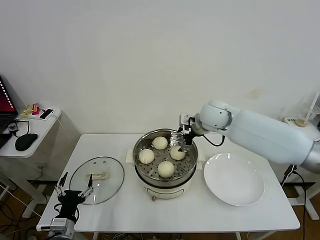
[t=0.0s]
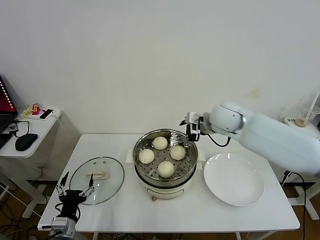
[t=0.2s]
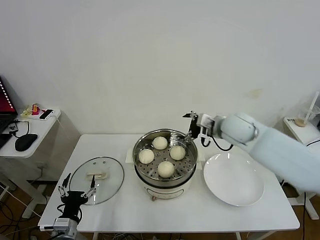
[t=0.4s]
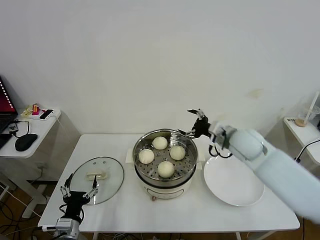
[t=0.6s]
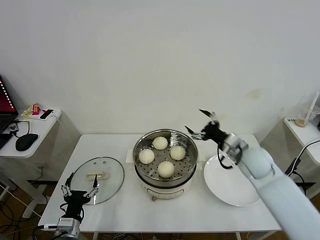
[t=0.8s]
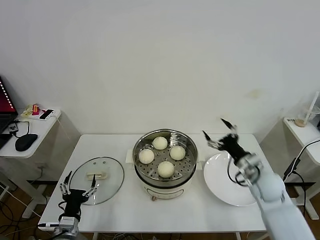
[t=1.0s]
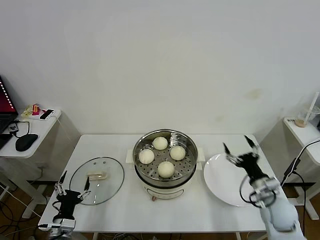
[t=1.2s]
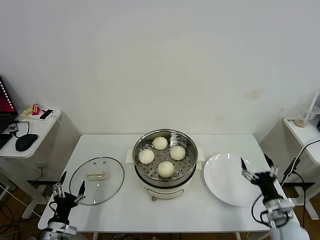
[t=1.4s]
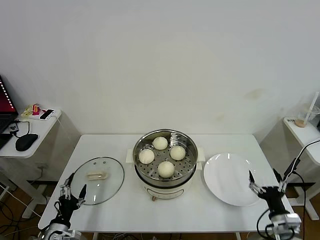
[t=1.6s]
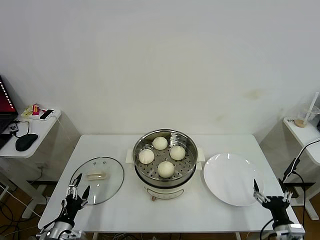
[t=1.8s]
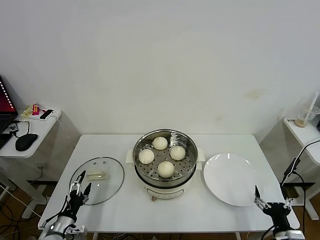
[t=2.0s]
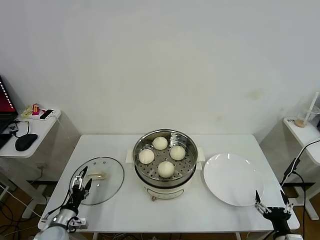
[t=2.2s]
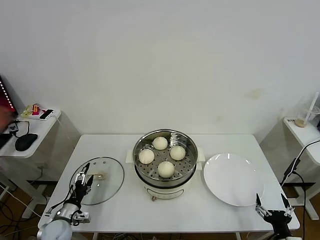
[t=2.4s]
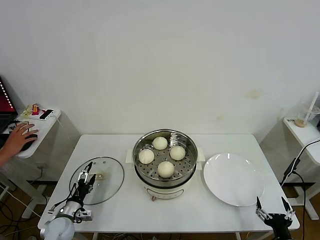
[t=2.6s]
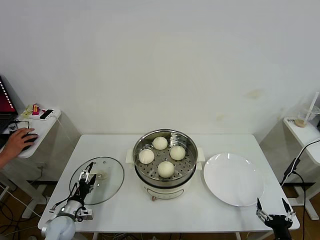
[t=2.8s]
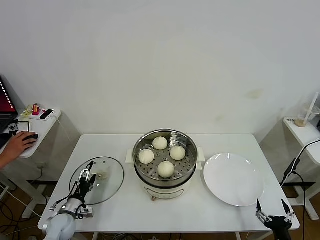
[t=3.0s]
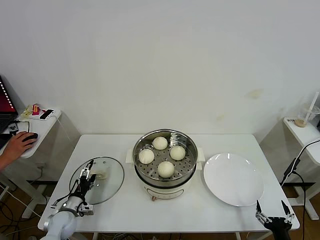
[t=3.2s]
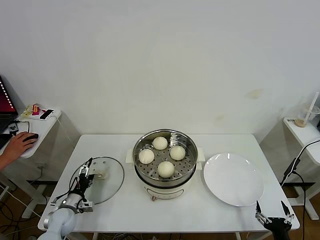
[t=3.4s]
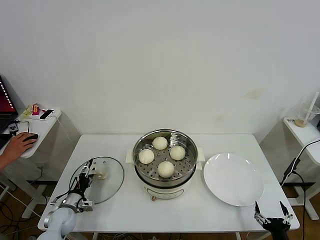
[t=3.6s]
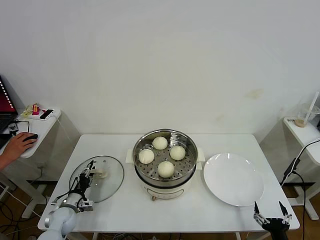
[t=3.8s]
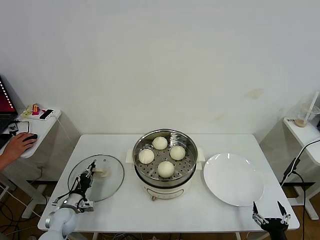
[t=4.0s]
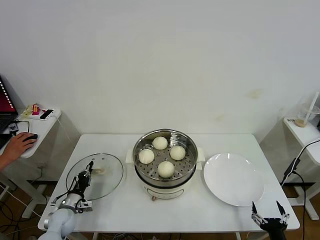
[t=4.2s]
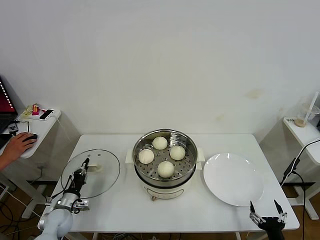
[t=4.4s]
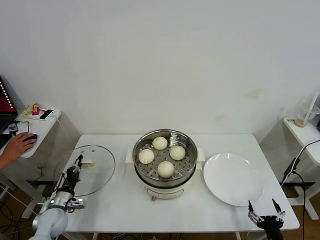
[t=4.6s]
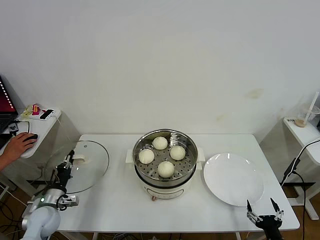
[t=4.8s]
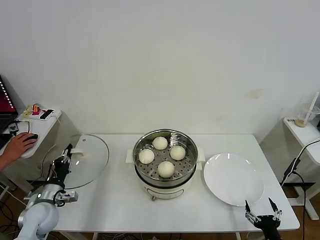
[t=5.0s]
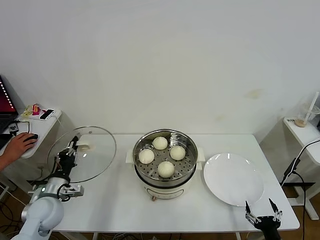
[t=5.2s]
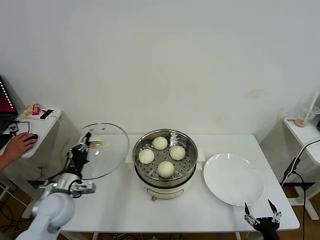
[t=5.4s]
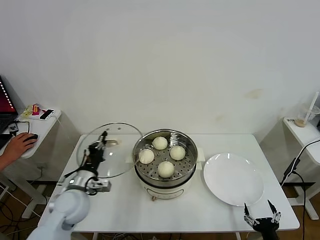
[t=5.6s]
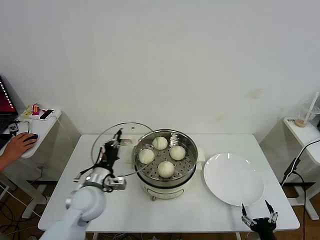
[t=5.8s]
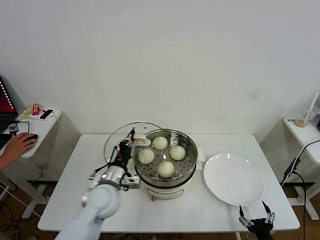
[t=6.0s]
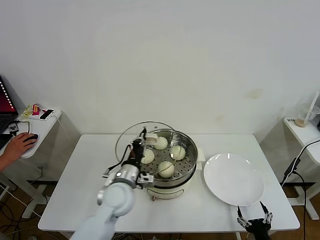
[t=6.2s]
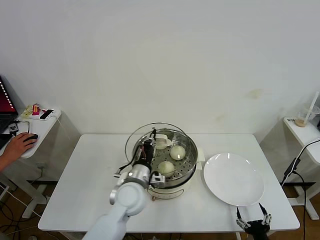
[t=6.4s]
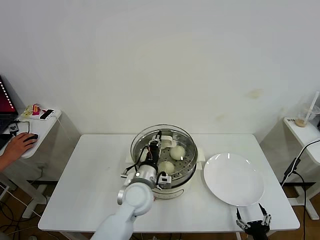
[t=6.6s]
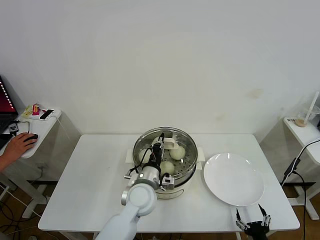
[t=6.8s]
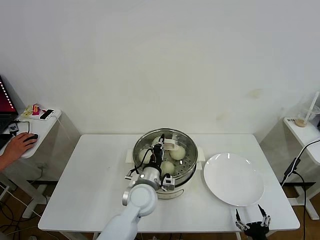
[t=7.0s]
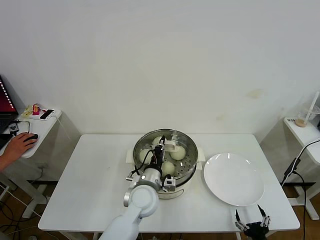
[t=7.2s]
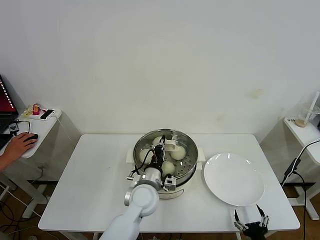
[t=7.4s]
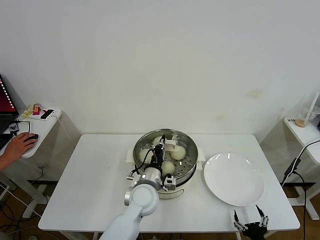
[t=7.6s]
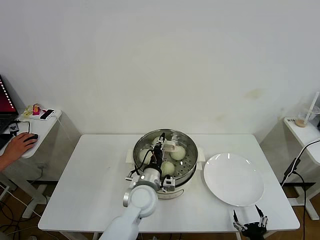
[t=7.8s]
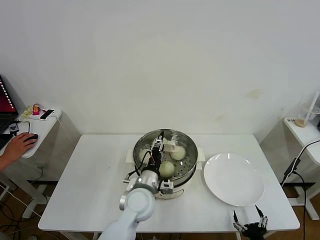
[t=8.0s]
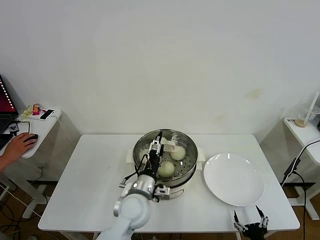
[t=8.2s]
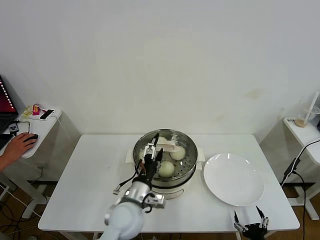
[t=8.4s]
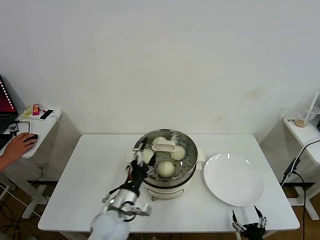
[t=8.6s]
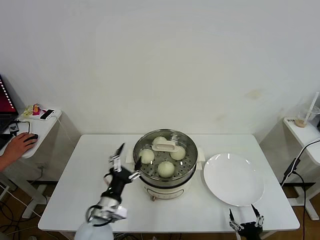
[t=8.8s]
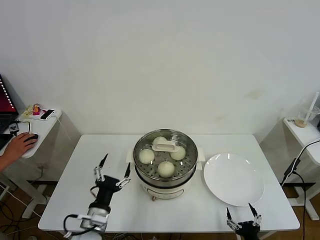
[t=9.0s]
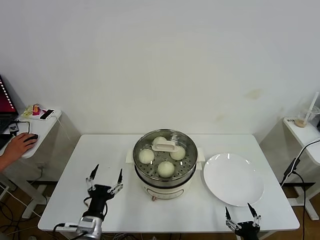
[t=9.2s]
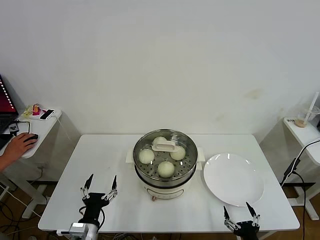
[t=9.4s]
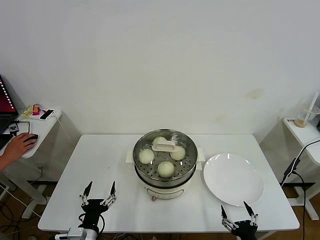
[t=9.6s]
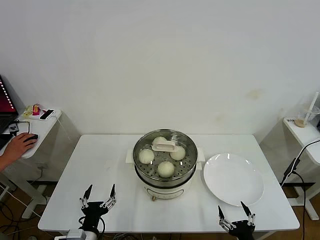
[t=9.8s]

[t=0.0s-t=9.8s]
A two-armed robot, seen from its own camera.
Task of the whole recording: take steamed baozi put them in steamer then cover it.
Step, t=0.0s to t=4.2s: Grasp the pot lid with left gripper.
Step, t=4.4s to t=8.4s: Place the pot lid on the steamer with left gripper.
t=0.0s to t=1.4s: The right gripper is displaced backward, downward and to the right by about 40 cm; the left gripper ends up approximately 5 cm from where it was.
t=1.4s to t=2.8s: The right gripper moves backward and downward, about 15 cm; the left gripper travels forward by some 10 cm.
t=2.8s to t=4.2s: The left gripper closes its fingers.
t=4.2s to t=5.6s: The left gripper heads upward and to the right, covering some 20 cm.
t=5.6s to t=7.0s: The left gripper is displaced to the right by about 20 cm.
t=7.0s to t=8.4s: The left gripper shifts approximately 5 cm backward, and opens.
t=8.4s to t=9.8s: The right gripper shifts some 5 cm upward, while the left gripper travels to the left, backward and downward by some 20 cm.
